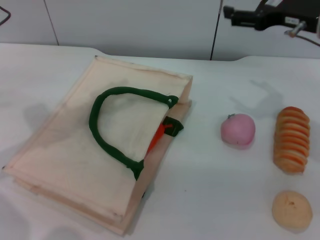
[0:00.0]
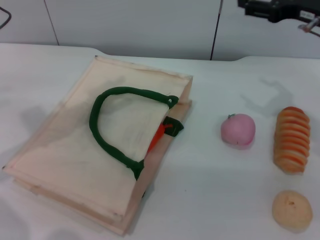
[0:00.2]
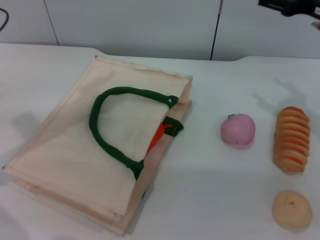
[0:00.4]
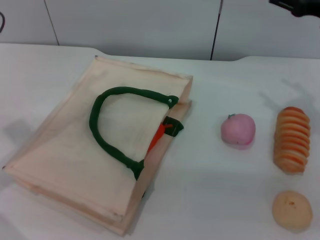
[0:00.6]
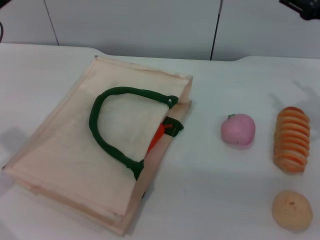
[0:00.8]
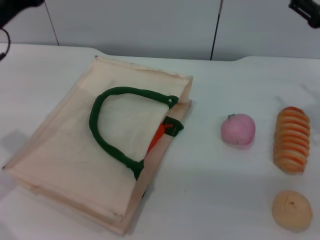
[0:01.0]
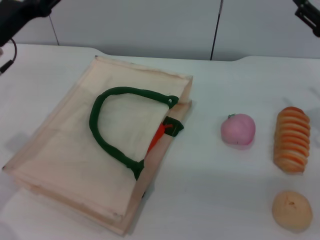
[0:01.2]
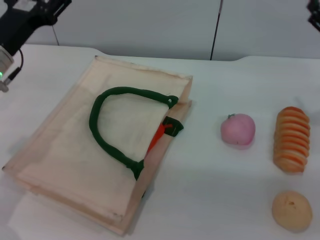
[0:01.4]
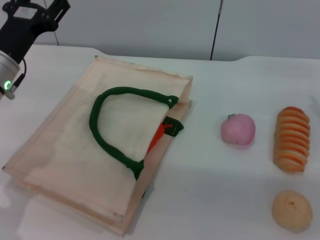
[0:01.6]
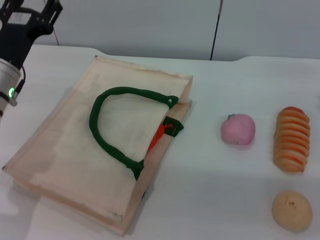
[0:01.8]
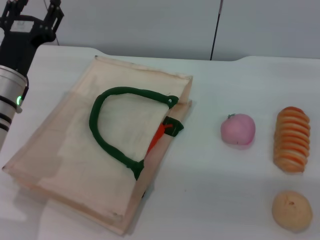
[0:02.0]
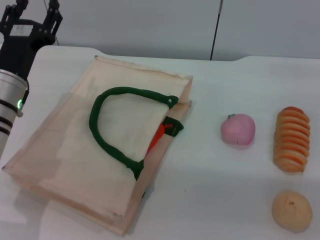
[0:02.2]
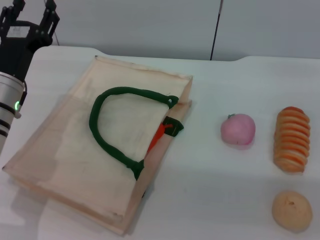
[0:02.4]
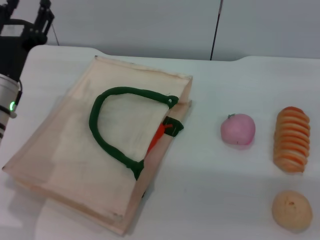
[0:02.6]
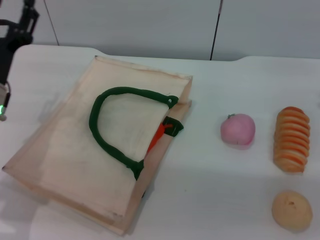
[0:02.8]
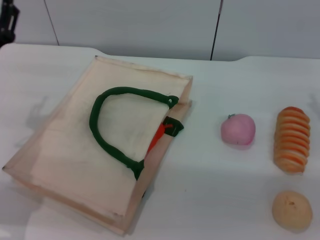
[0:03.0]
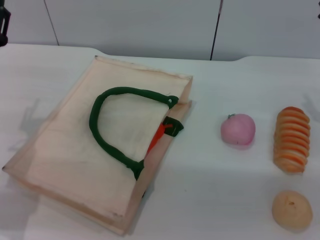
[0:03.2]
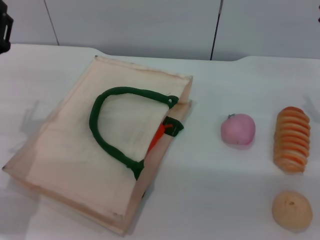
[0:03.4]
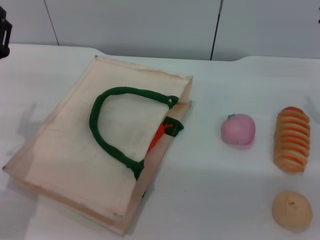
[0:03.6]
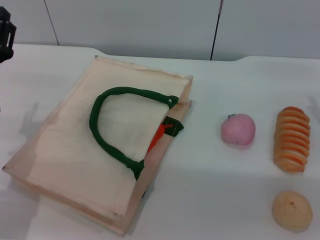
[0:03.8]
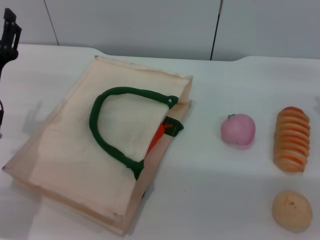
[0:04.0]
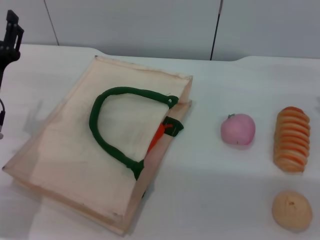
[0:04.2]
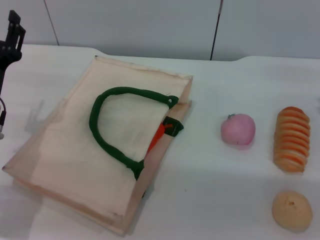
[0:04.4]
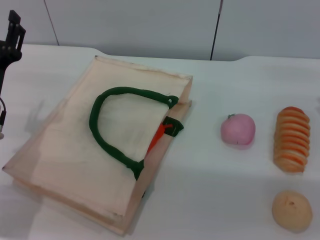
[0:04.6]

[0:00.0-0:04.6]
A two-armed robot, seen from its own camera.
Task of the whole recording: pick up the orange from the table and place it in the white handbag.
0:00.0 to 0:01.6: The right gripper goes some 15 cm downward, to the right and backward. The left gripper is displaced downward by some 15 cm.
0:01.6 to 0:03.0: The left gripper shifts by approximately 5 cm.
0:03.0 to 0:04.6: The grippers make only small movements.

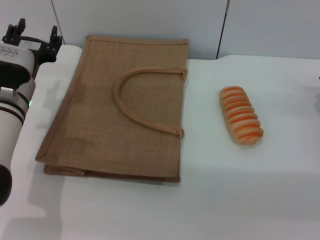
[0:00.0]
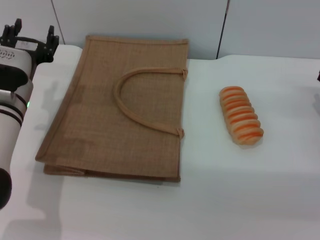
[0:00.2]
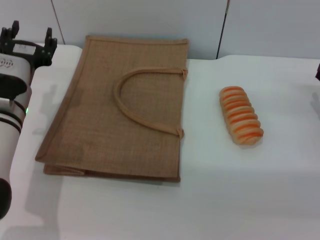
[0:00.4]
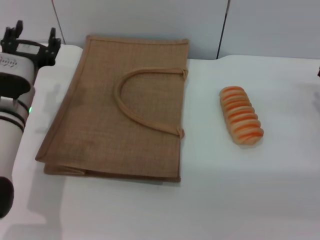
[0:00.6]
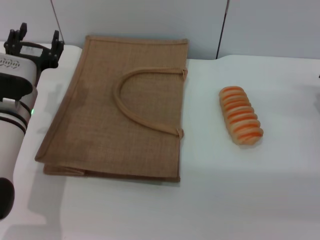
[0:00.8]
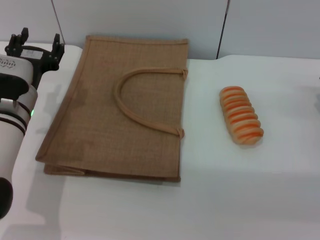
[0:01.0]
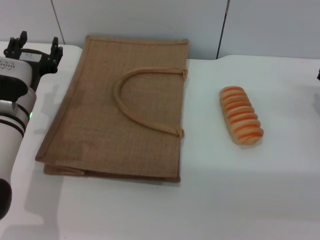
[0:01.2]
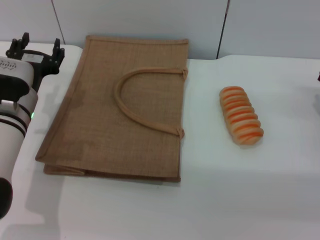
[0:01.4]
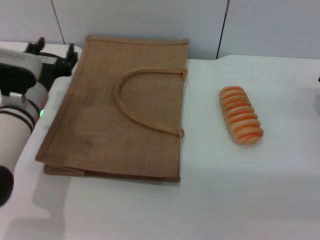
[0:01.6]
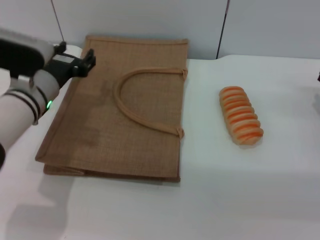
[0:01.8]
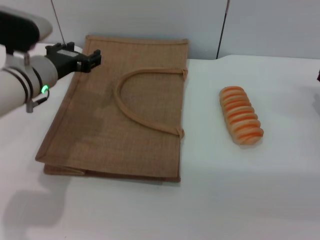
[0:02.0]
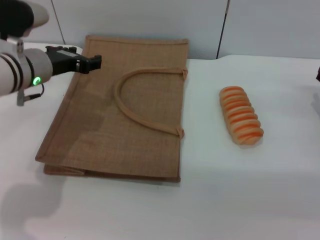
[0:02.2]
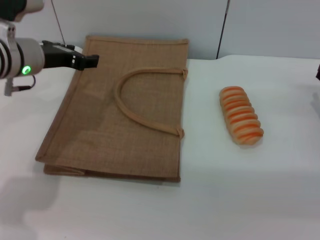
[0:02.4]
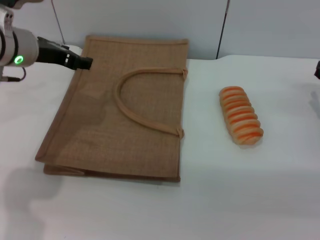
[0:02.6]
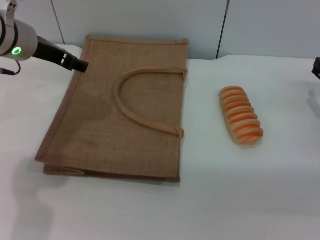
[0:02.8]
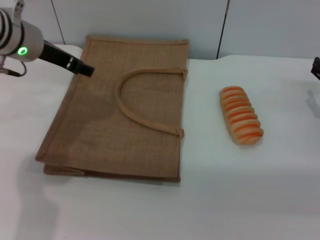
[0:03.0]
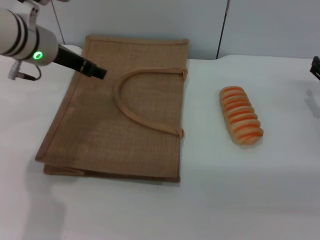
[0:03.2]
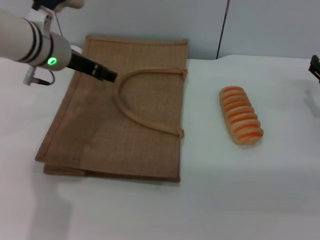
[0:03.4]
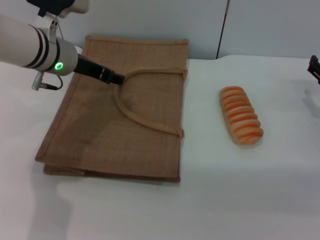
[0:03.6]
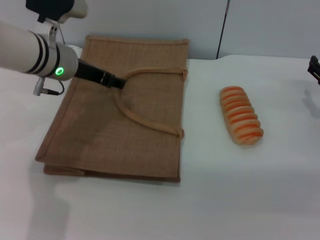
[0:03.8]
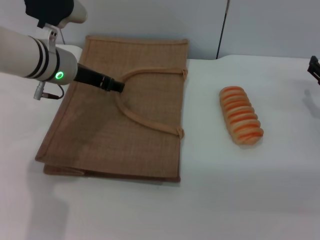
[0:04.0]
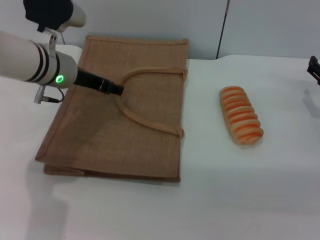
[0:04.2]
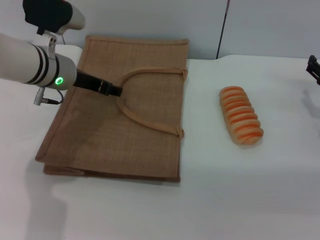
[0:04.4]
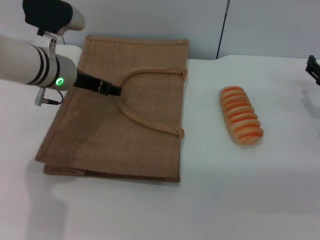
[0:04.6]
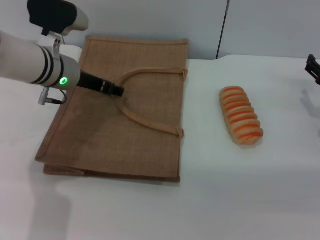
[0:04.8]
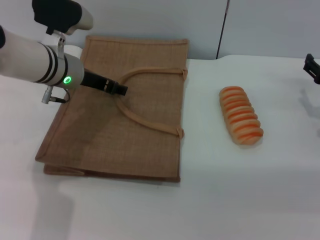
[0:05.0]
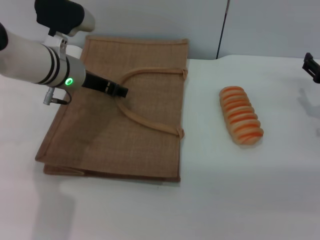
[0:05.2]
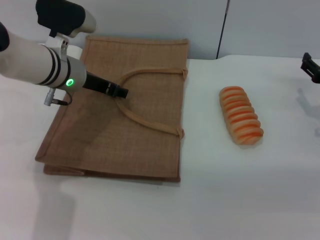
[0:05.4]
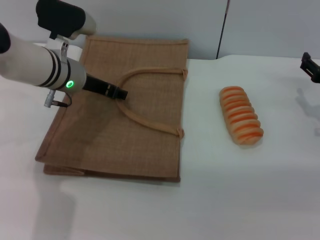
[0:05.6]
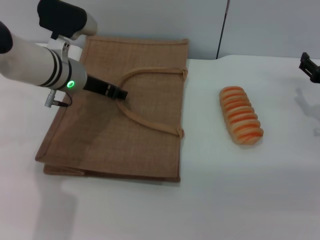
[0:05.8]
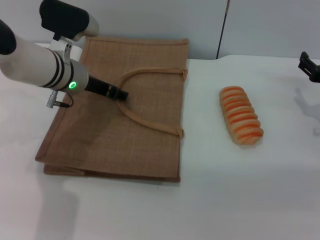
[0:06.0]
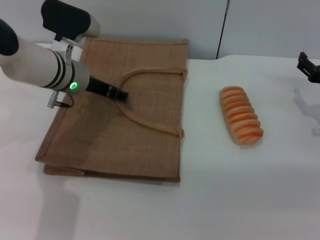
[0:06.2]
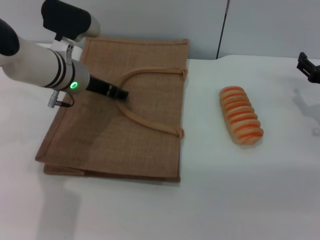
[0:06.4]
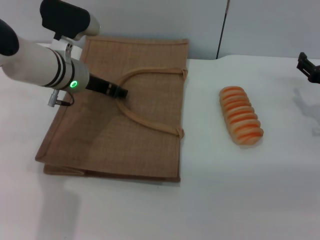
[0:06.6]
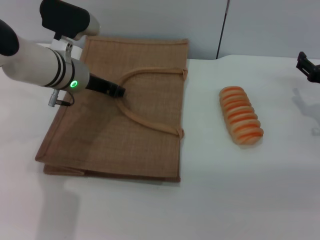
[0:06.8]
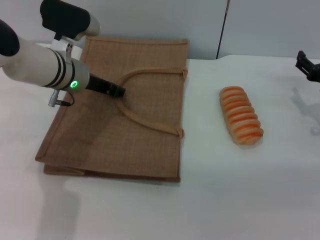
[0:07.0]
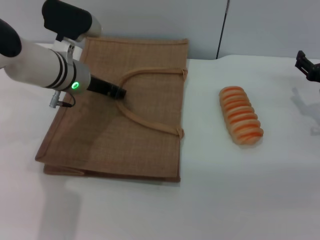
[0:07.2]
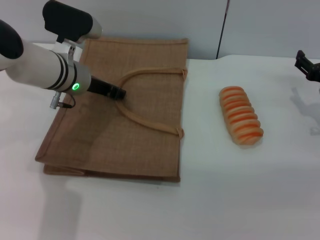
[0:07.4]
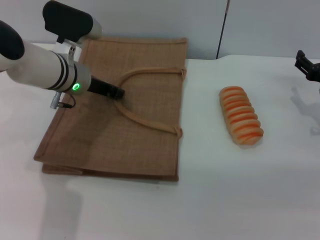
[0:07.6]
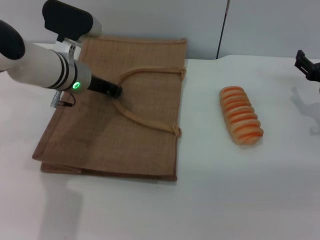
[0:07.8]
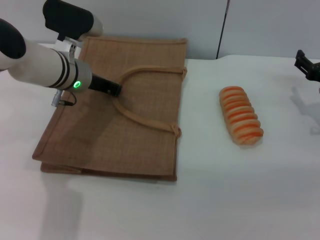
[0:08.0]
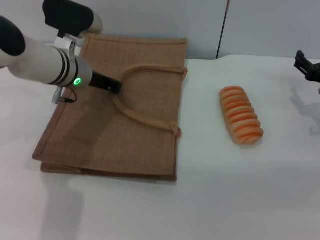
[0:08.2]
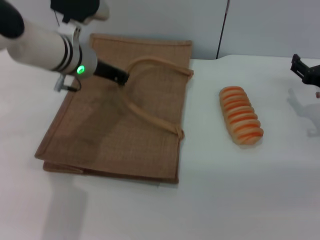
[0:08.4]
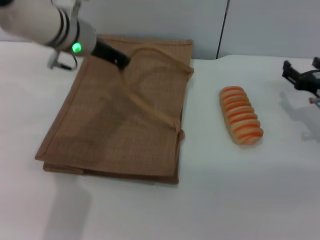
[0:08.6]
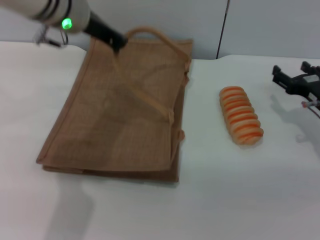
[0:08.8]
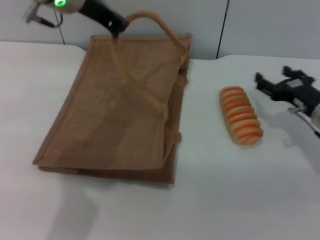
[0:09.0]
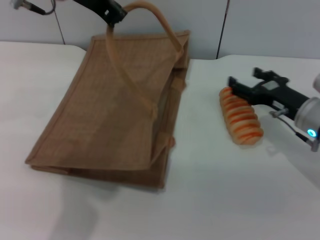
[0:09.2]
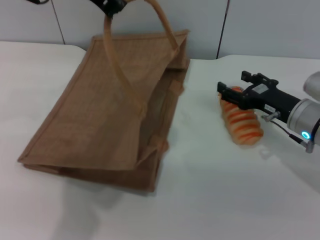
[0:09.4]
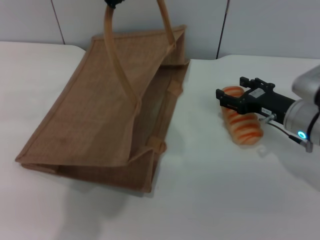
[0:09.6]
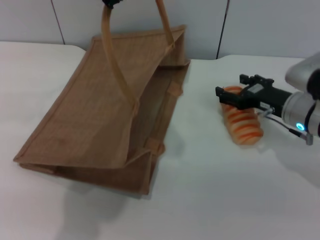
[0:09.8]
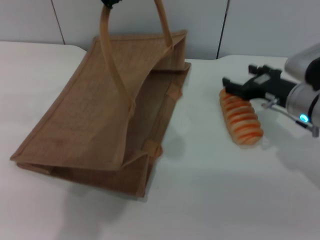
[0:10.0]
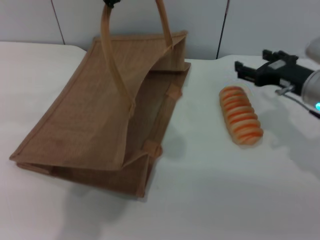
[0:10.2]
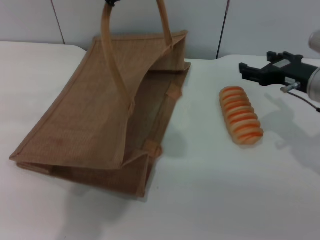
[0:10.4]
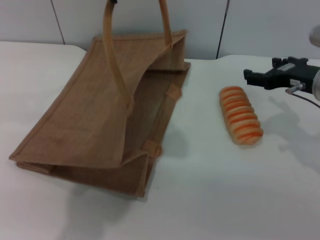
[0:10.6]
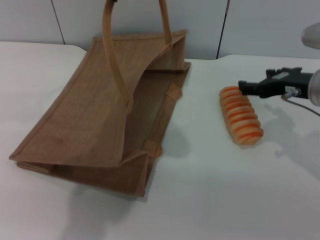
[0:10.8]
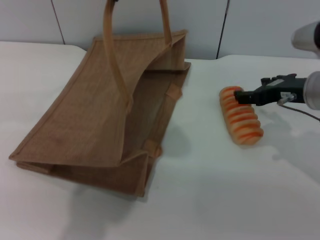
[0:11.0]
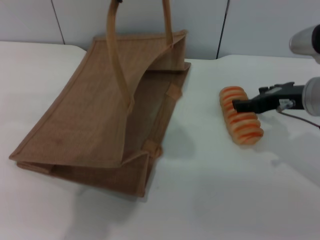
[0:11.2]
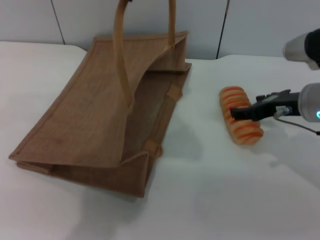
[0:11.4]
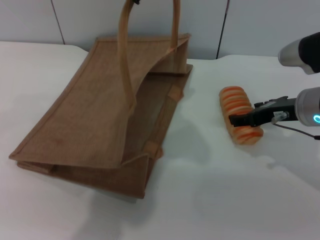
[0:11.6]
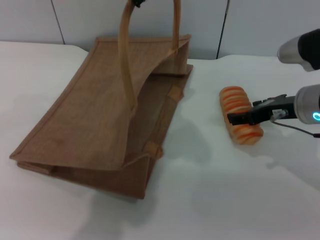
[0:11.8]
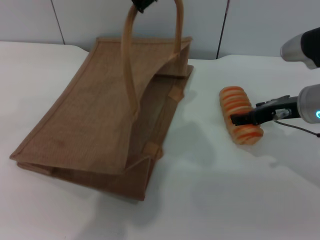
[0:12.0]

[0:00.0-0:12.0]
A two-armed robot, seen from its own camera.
Task of the whole recording: pick up the bread from the table and place it in the brown handbag.
Step, 0:00.0 to 0:08.6: Lift the woven bag with the left gripper to open it.
0:00.0 to 0:01.6: The grippers move only a little.
0:01.6 to 0:03.0: The left gripper goes about 15 cm upward and forward.
0:03.0 to 0:04.4: The left gripper goes some 5 cm downward.
0:04.4 to 0:06.0: There are only small adjustments of the grippers.
0:06.0 to 0:07.6: Both grippers stay about where they are.
0:07.6 to 0:09.0: The left gripper shifts approximately 15 cm upward, and closes up.
0:09.0 to 0:10.4: The two grippers go some 5 cm upward.

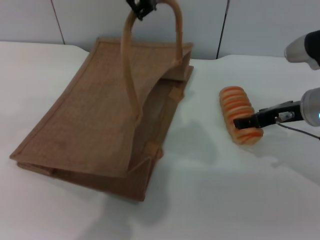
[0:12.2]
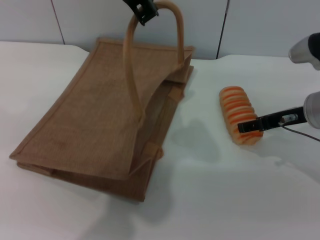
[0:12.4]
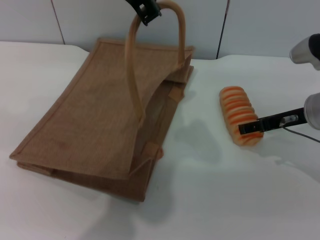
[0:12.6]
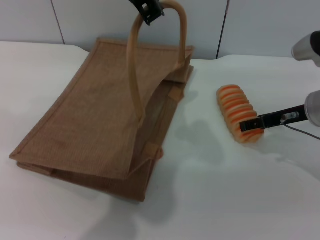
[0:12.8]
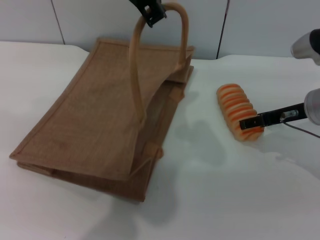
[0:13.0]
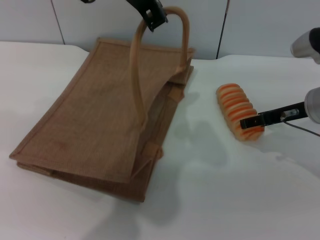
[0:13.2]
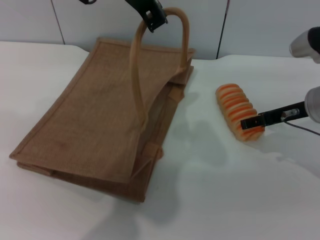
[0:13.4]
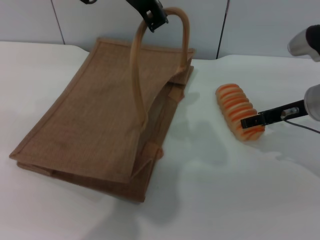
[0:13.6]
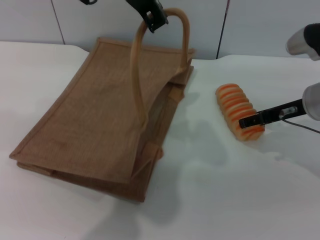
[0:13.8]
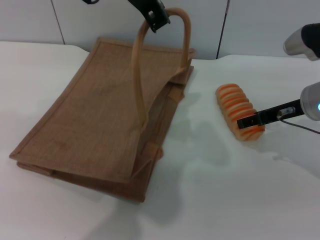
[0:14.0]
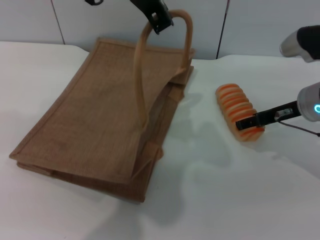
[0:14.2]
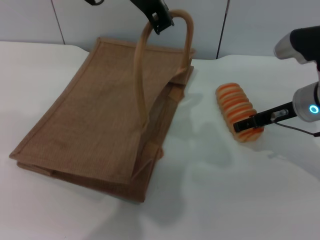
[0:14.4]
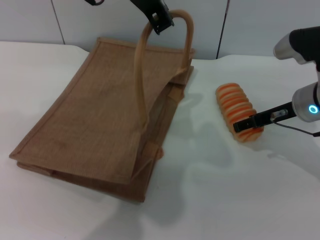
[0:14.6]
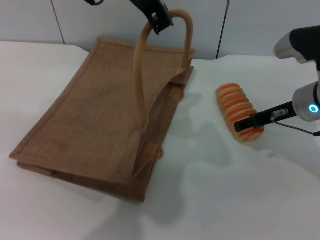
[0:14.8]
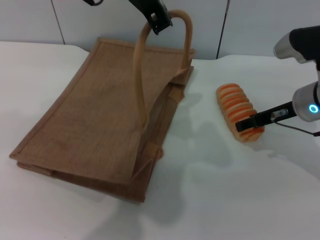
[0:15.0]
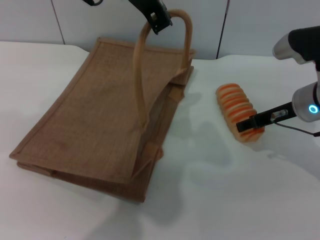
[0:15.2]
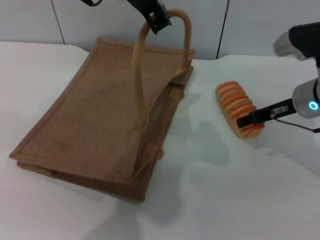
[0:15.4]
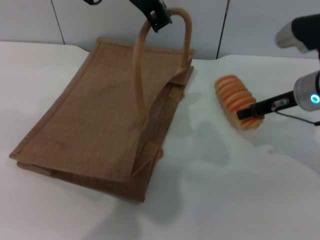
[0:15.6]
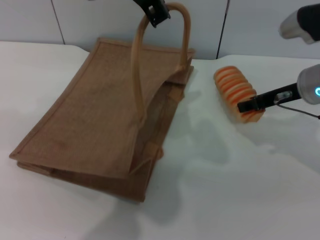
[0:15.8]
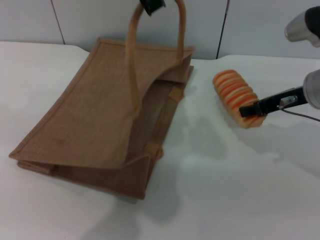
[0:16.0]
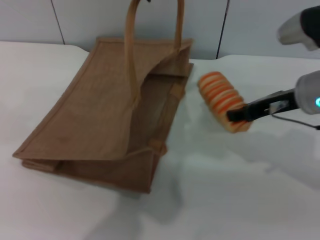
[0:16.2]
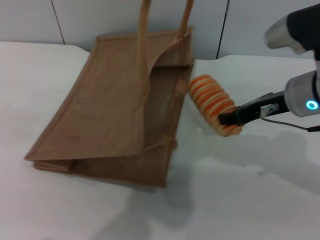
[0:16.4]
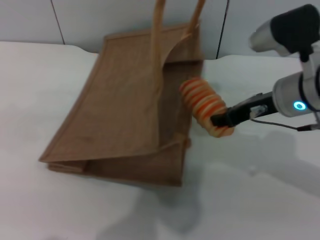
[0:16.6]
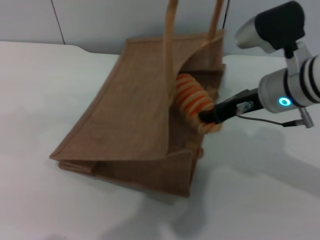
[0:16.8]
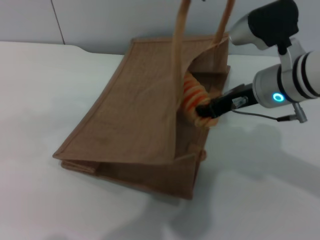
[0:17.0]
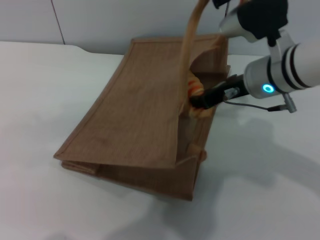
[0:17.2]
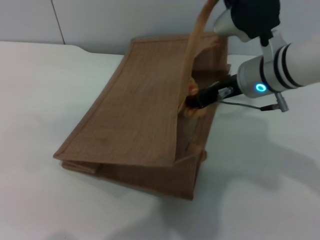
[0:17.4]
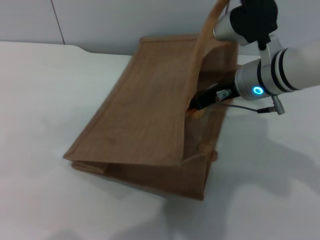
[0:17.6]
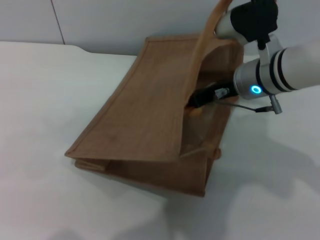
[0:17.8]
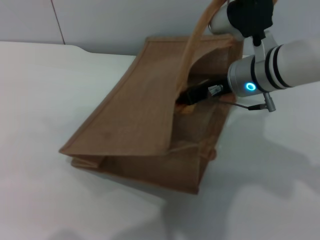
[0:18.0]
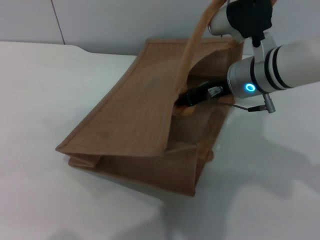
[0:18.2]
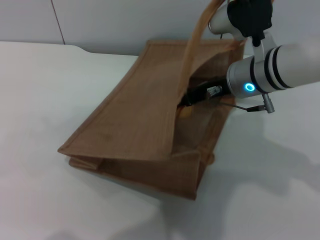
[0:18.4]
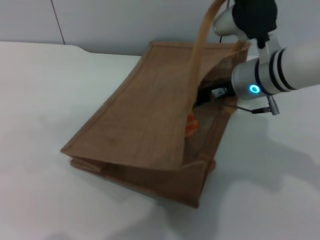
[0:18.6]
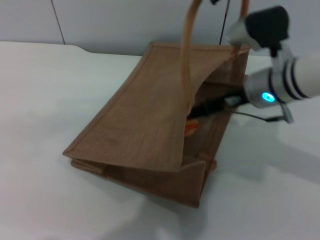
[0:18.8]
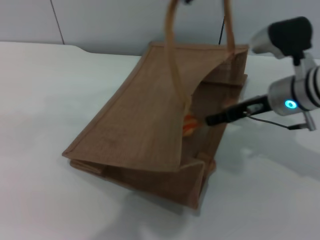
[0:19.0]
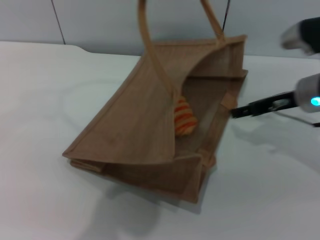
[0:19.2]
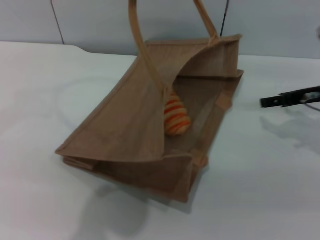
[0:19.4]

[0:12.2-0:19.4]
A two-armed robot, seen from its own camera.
Task of the whole recording: pick up the bread from the table and place it in the brown handbag.
Step, 0:12.2 to 0:15.8: Pick up the bread with the right gripper.
Step, 0:16.2 to 0:19.0: Place the bread into the woven bag with the right gripper.
0:12.2 to 0:15.0: The grippers move only a little.
0:15.0 to 0:16.6: The right gripper moves about 5 cm, and closes.
0:16.6 to 0:18.0: The left gripper moves to the right, some 5 cm; the right gripper is displaced to the left by some 5 cm.
0:18.0 to 0:19.4: The right gripper moves to the right, roughly 15 cm, and opens up. The left gripper heads to the left, covering some 10 cm.
